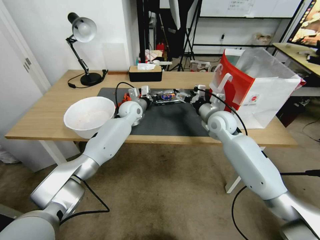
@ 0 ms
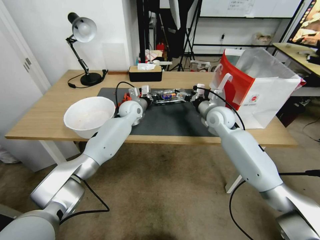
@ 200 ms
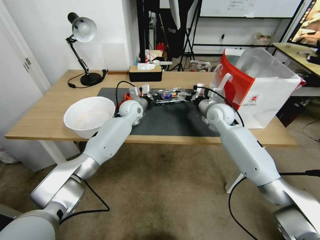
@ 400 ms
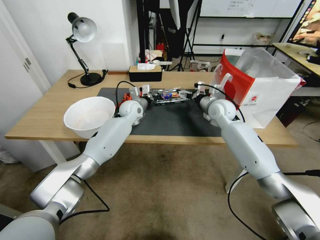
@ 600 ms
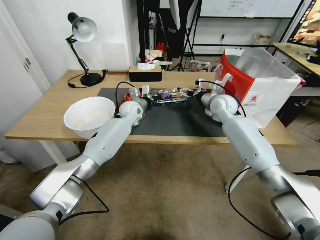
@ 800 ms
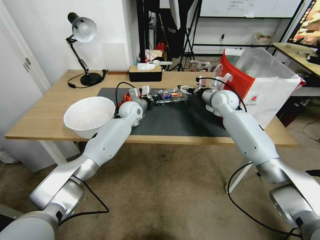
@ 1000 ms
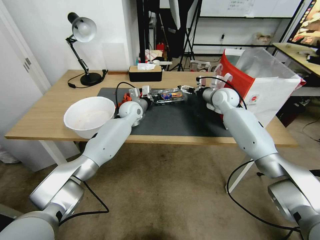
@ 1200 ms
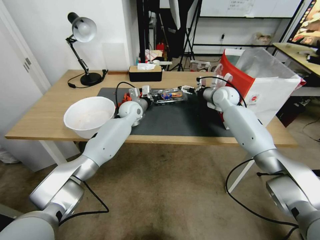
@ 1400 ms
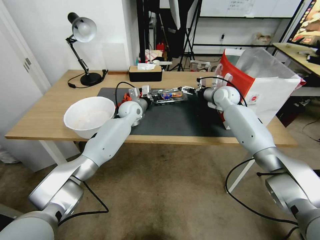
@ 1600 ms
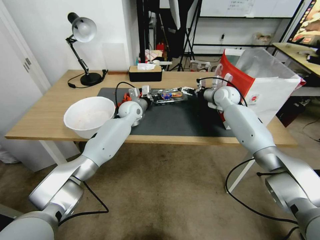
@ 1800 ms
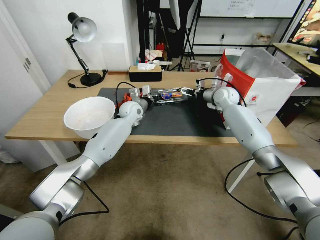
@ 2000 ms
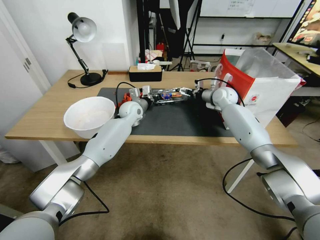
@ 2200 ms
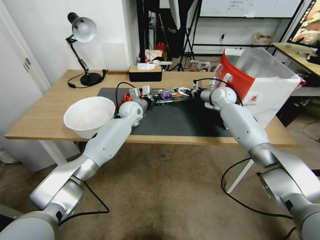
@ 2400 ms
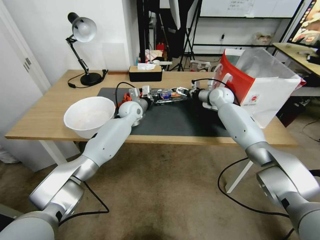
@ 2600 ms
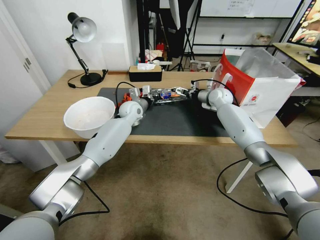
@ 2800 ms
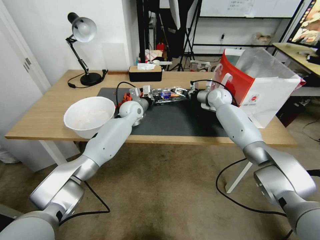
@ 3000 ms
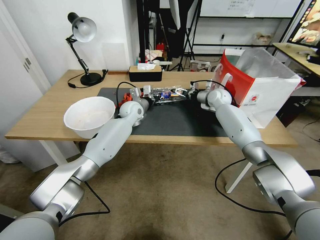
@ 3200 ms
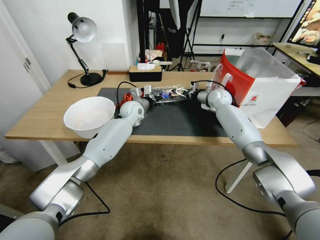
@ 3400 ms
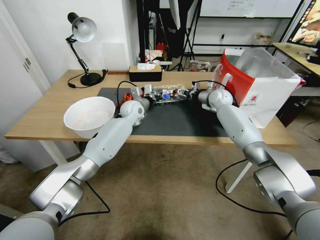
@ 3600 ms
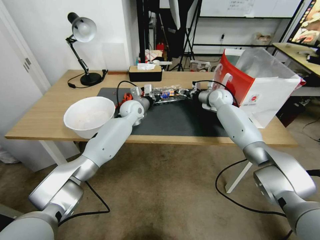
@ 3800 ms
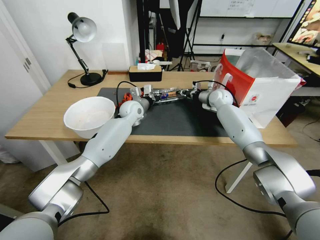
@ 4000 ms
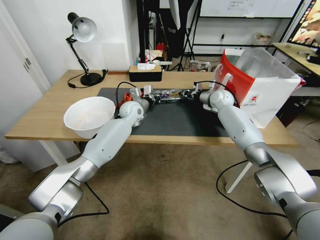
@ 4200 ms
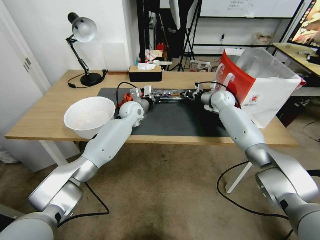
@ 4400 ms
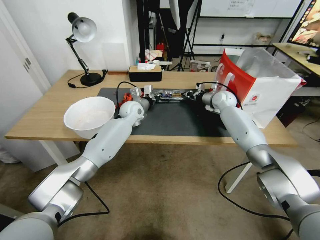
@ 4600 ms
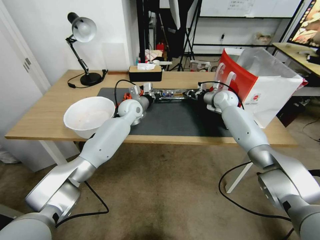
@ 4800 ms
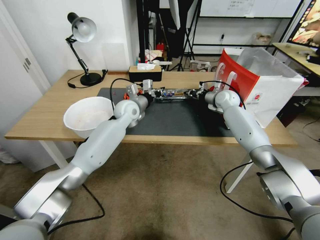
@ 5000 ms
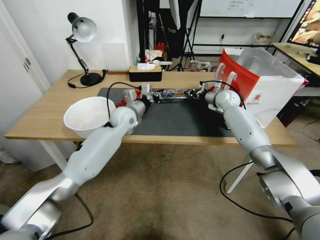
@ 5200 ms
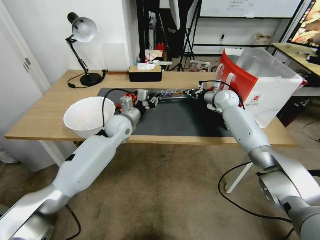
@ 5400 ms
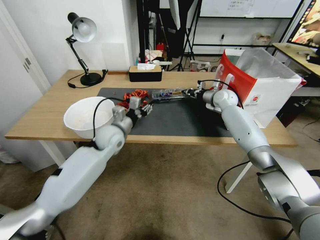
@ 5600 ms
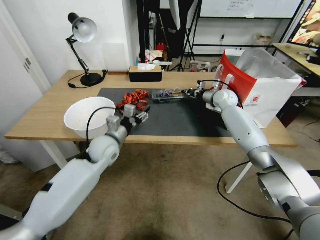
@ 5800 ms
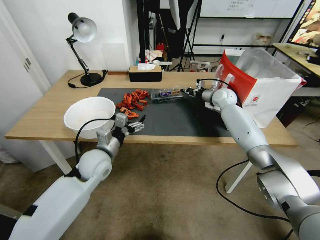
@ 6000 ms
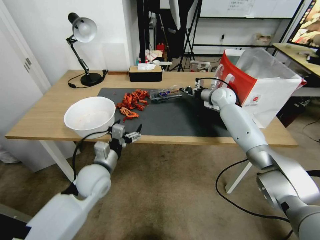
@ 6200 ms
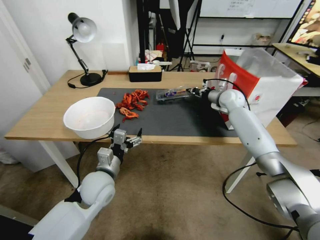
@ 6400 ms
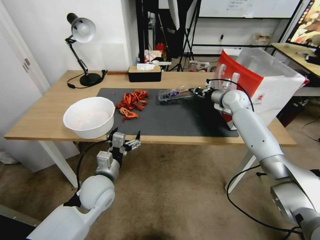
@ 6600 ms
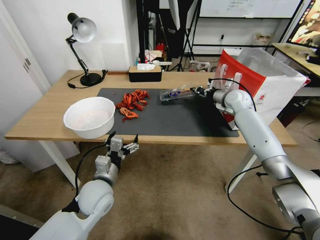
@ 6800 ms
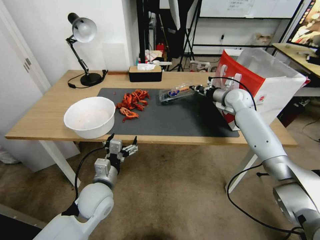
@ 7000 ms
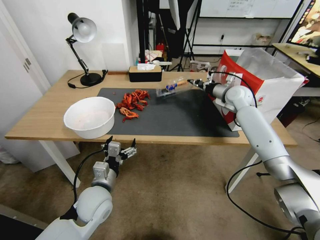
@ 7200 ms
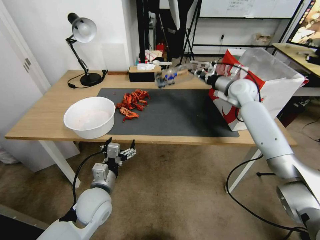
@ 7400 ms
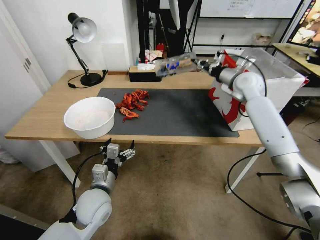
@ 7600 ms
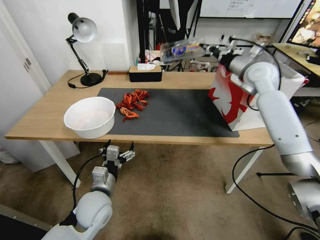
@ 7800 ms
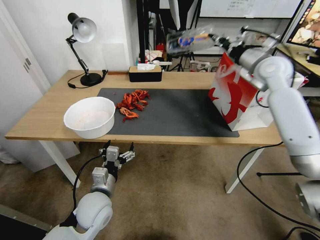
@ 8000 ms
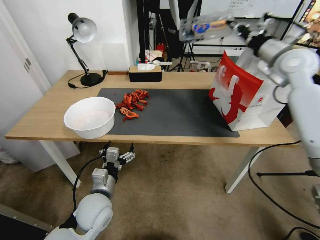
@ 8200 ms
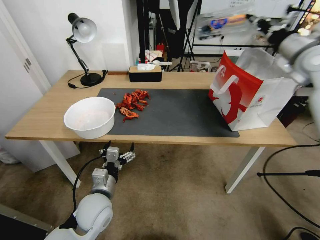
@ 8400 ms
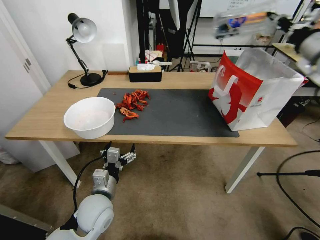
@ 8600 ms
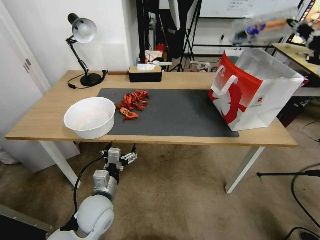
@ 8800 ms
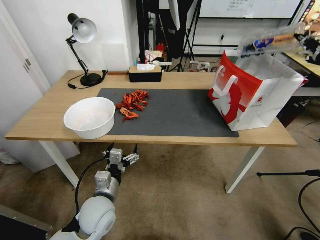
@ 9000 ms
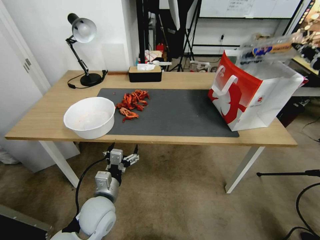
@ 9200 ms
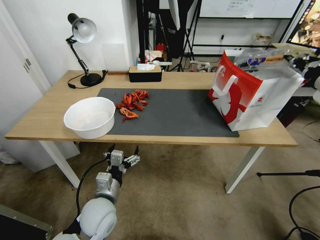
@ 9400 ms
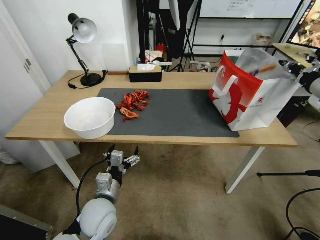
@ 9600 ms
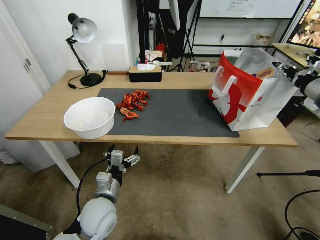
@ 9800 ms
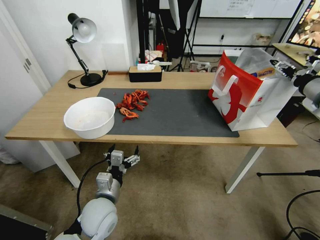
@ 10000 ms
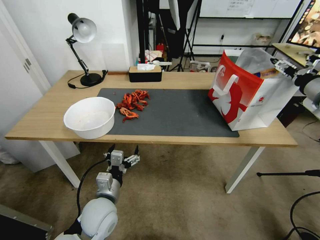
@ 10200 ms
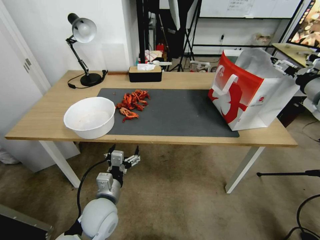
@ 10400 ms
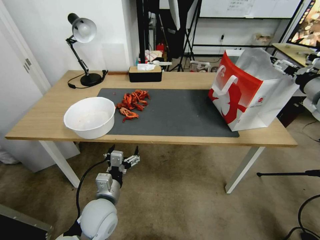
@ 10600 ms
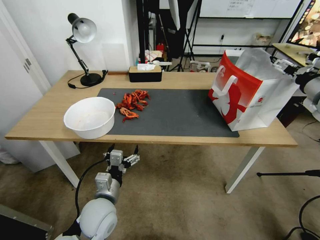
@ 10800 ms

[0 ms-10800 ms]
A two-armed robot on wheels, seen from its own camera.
Task of the whole recording: Close the takeout container lid, then place the container into the takeout bag.
0 ms to 1600 ms: The right gripper shifts about 15 cm forward and to the right.
1600 ms to 3000 ms: There are only small adjustments of the grippers.
3000 ms to 4600 ms: The right gripper closes up.
4600 ms to 6200 ms: The left gripper moves backward, about 25 cm, and opens its fingers.
6200 ms to 7800 ms: The left gripper heads backward, covering about 5 cm. Meanwhile the right gripper moves upward and backward, about 15 cm.
7800 ms to 9200 ms: The right gripper goes about 25 cm to the right and backward.
9200 ms to 10800 ms: The right gripper opens its fingers.

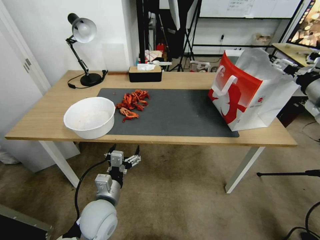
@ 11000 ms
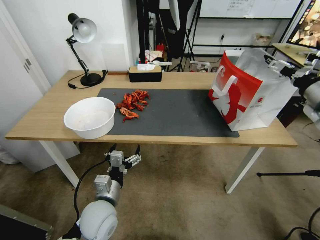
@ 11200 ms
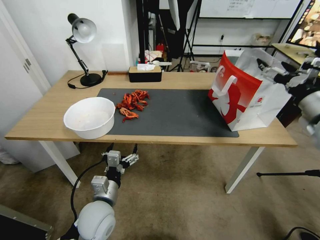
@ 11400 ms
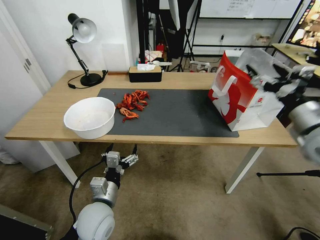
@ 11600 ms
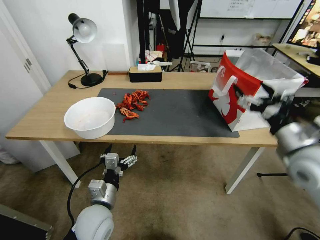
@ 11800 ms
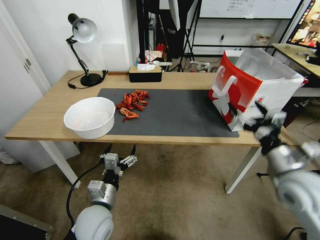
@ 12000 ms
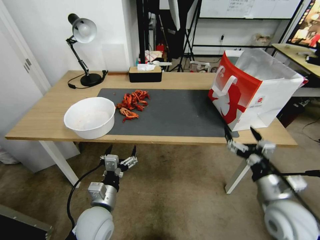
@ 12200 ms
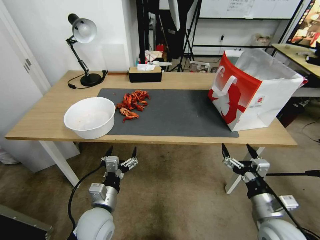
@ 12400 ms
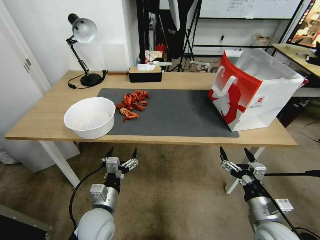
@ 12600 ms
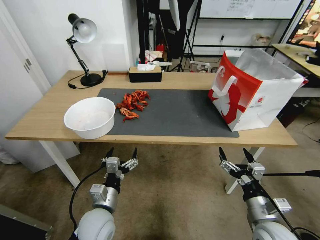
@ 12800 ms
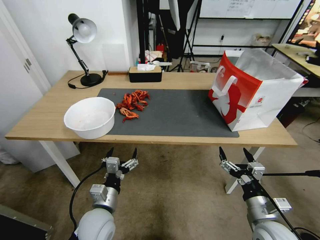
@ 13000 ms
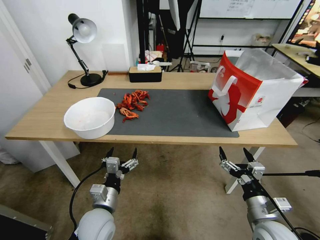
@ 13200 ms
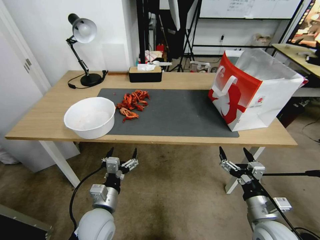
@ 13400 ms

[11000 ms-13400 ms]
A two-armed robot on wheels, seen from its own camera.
Task of the whole recording: Close the takeout container lid, then place the container into the takeout bag.
11000 ms to 12200 ms: The right gripper travels downward, backward and to the left by roughly 30 cm.
12200 ms to 13400 ms: The right gripper moves downward, some 5 cm.
